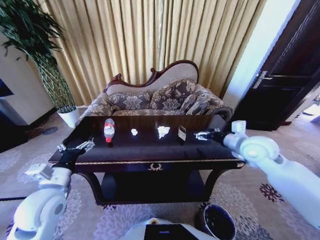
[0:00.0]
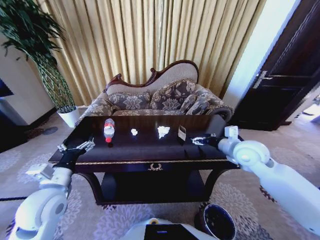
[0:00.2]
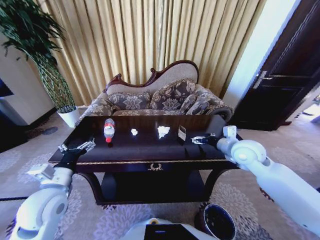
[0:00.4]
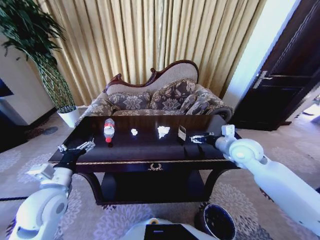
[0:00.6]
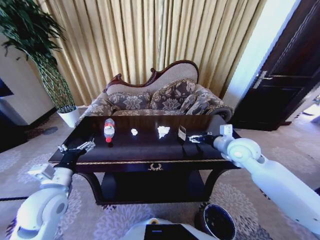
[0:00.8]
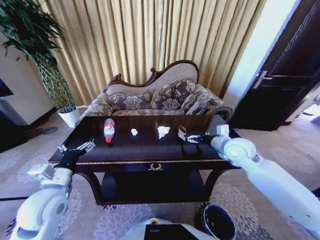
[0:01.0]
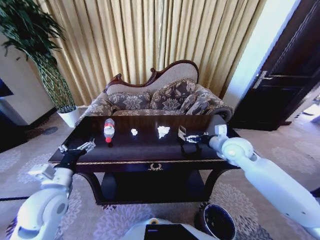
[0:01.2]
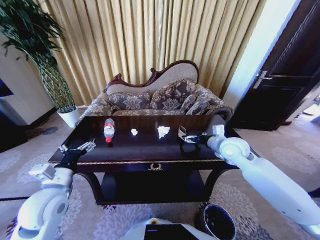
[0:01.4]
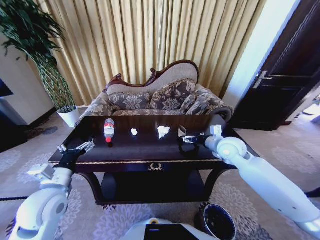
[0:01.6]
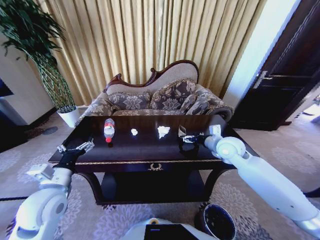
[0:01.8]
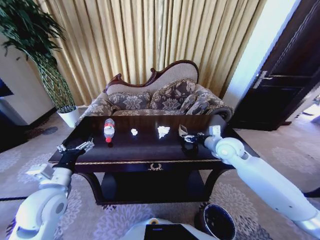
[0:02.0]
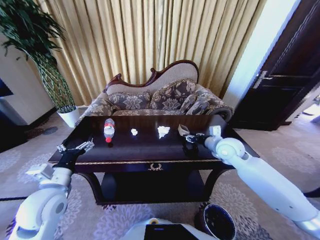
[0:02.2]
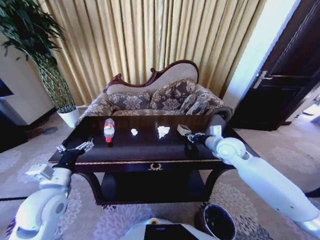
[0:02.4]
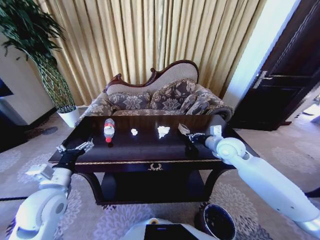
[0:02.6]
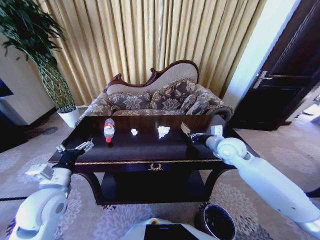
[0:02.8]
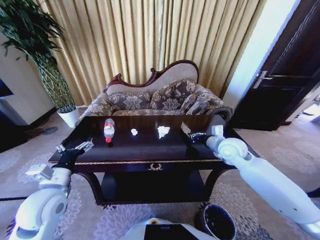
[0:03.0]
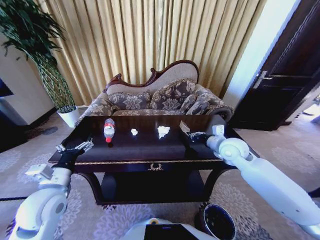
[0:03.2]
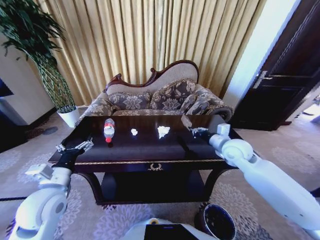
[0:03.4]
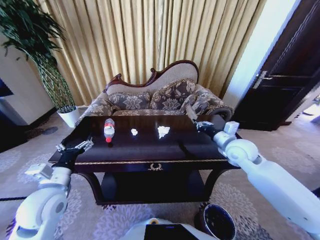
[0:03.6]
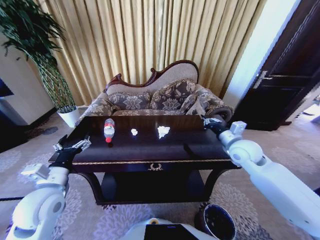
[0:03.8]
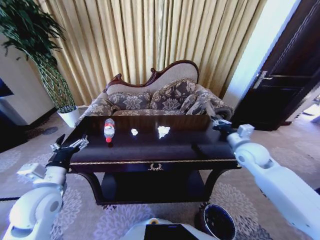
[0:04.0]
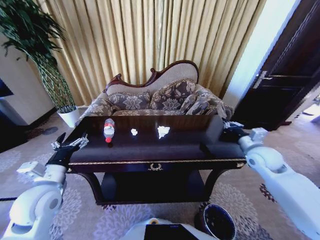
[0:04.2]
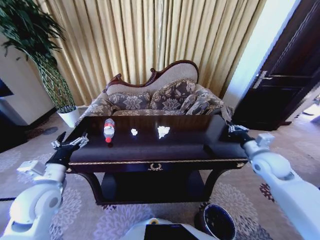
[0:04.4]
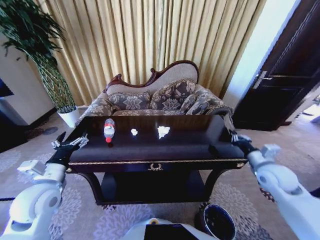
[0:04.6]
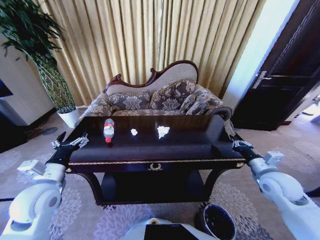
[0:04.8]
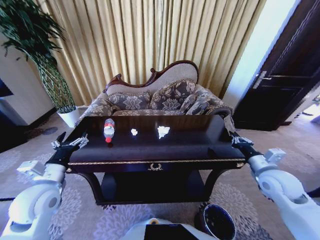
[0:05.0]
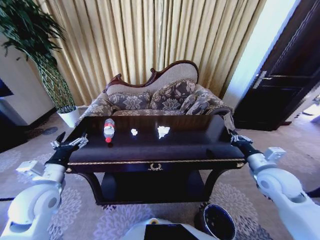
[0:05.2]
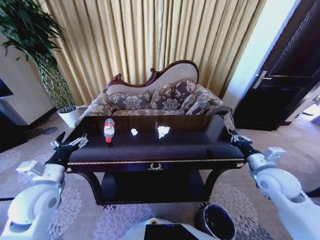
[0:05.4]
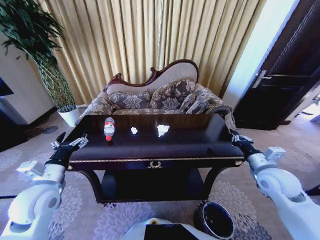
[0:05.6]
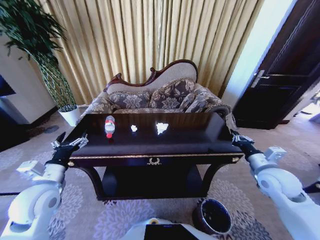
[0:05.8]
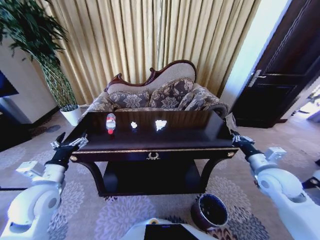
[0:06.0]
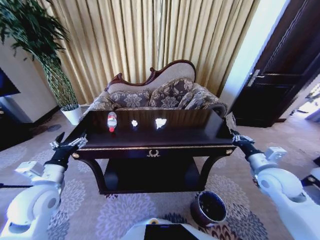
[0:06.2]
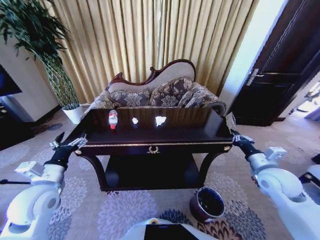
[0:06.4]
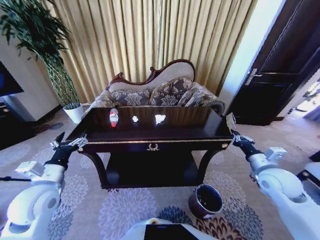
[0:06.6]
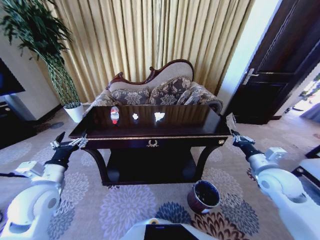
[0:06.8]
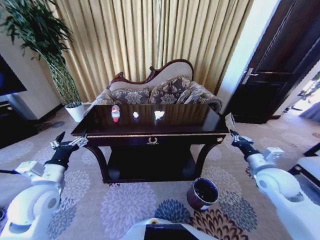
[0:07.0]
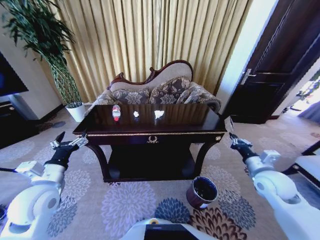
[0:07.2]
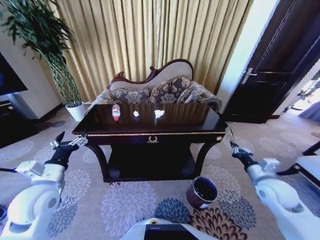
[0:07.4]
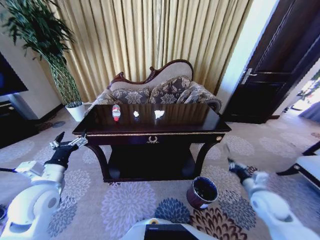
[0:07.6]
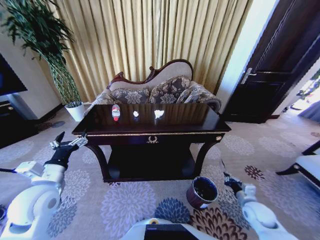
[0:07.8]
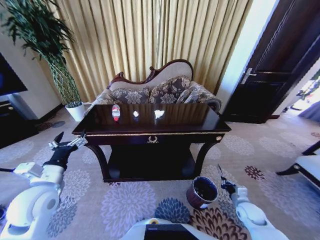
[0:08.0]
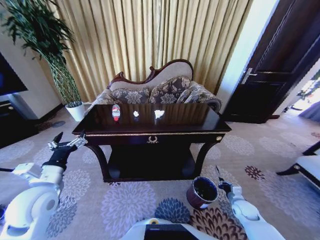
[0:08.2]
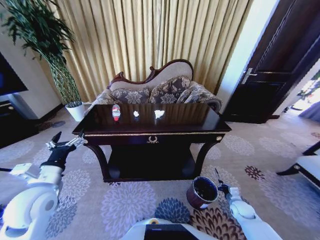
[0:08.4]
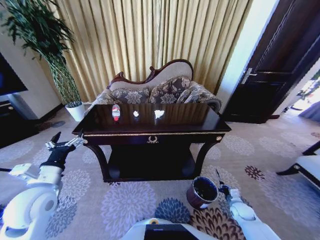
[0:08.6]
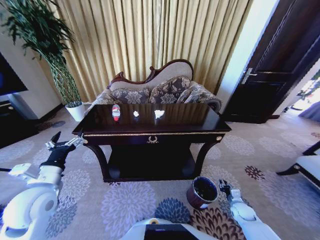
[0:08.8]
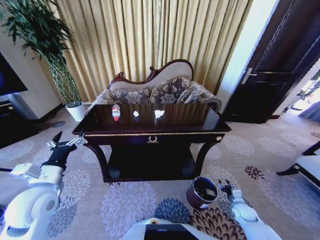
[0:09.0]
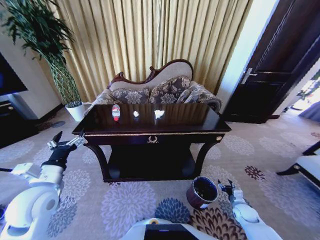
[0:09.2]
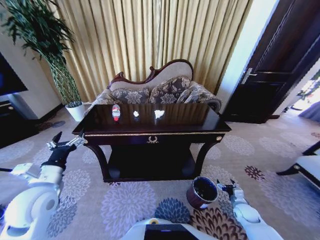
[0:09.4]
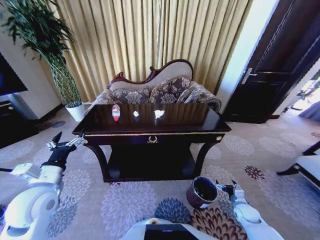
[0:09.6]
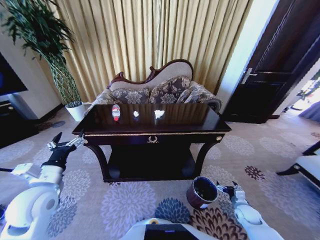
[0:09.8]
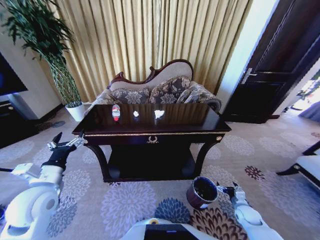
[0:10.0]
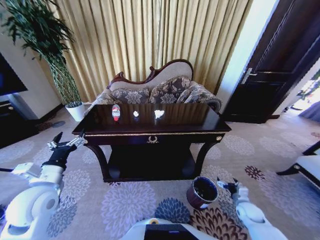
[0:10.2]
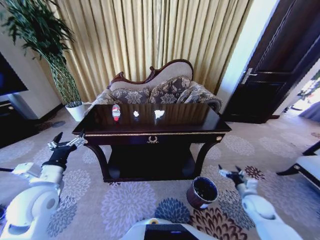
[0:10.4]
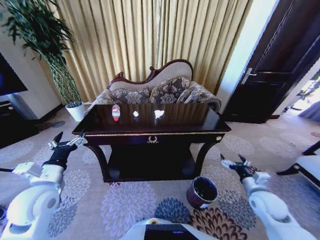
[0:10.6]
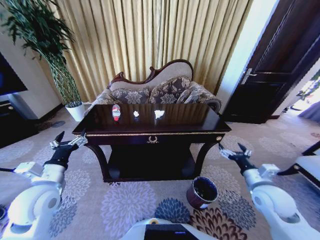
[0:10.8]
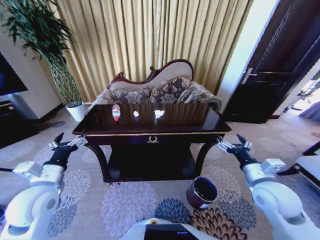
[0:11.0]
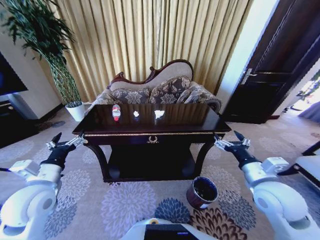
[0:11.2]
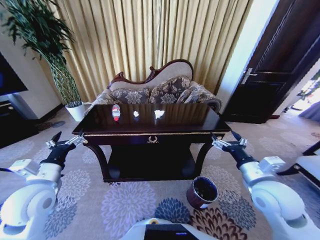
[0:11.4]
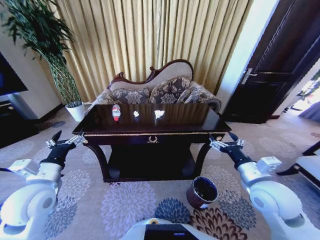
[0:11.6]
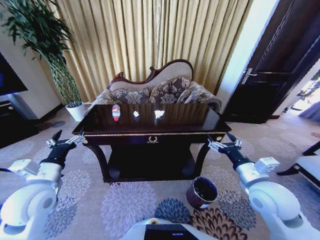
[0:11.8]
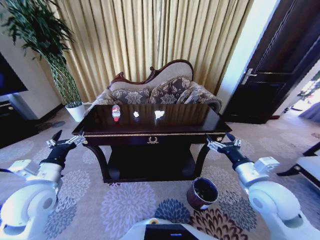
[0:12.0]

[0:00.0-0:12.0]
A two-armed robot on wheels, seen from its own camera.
Task of the whole recording: Move to the front of the table and place the trash on the table into the trash bin.
0:00.0 to 0:01.6: The right gripper shifts by some 5 cm.
0:01.6 to 0:03.0: The right gripper closes its fingers.
0:03.0 to 0:04.4: The right gripper heads to the right and backward, covering roughly 15 cm.
0:04.4 to 0:06.0: The right gripper moves backward, roughly 5 cm.
0:06.0 to 0:07.6: The right gripper heads downward, covering roughly 10 cm.
0:07.6 to 0:09.0: The right gripper is displaced downward by roughly 20 cm, and opens its fingers.
0:09.0 to 0:10.4: The right gripper travels upward by roughly 10 cm, and opens its fingers.
0:10.4 to 0:12.0: The right gripper shifts some 25 cm upward and to the left.

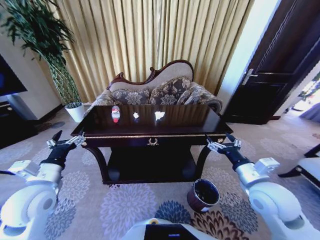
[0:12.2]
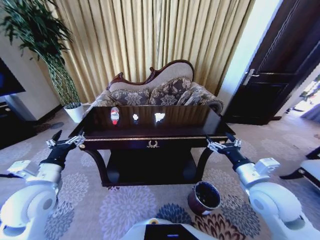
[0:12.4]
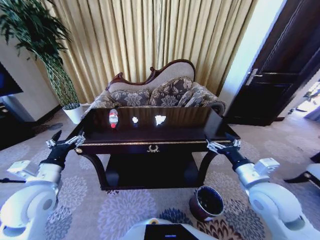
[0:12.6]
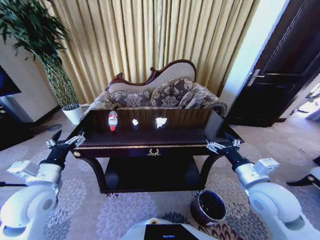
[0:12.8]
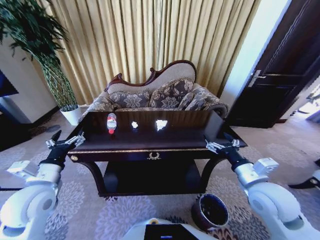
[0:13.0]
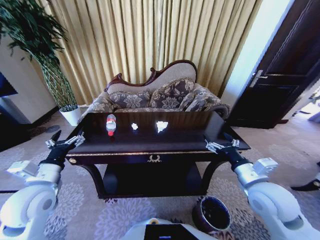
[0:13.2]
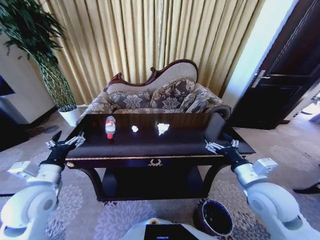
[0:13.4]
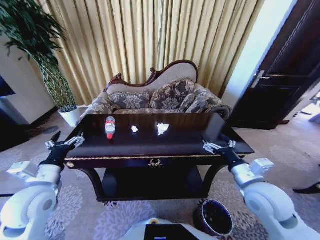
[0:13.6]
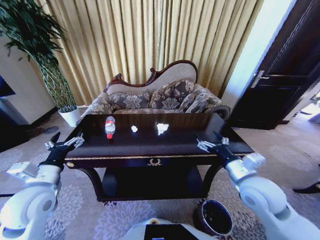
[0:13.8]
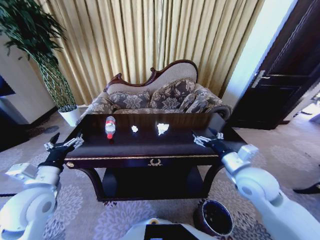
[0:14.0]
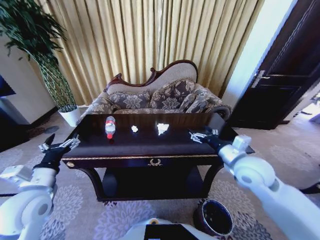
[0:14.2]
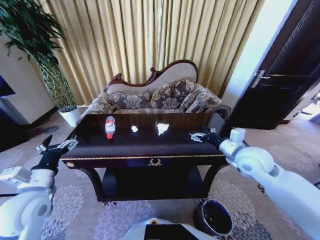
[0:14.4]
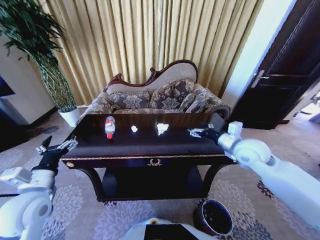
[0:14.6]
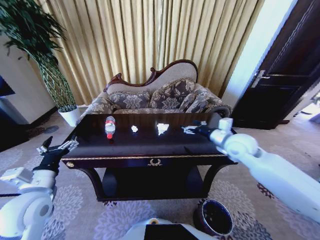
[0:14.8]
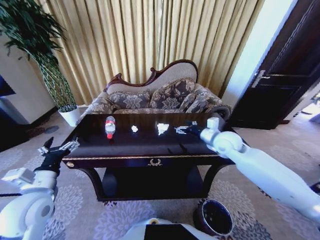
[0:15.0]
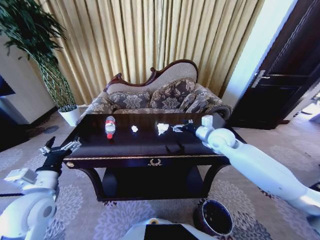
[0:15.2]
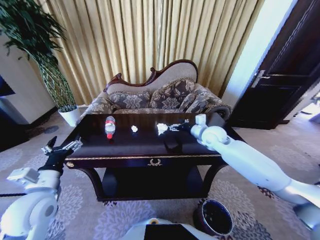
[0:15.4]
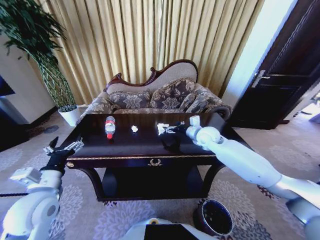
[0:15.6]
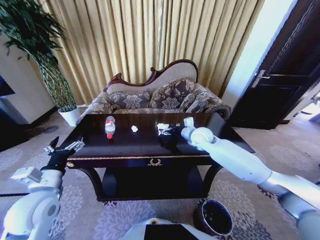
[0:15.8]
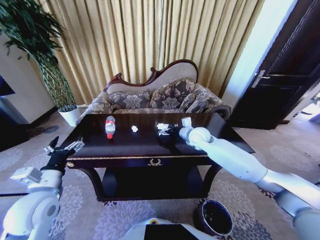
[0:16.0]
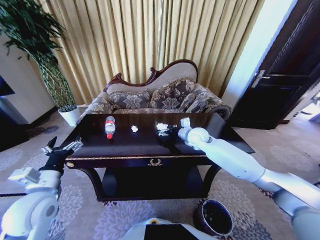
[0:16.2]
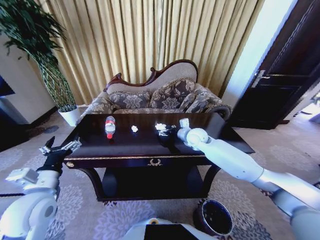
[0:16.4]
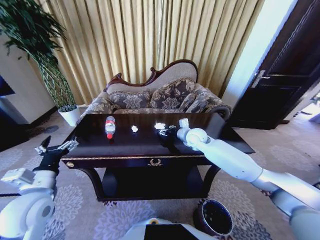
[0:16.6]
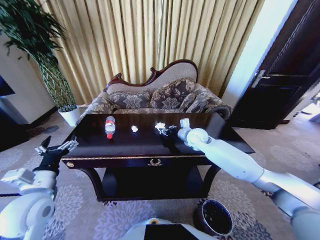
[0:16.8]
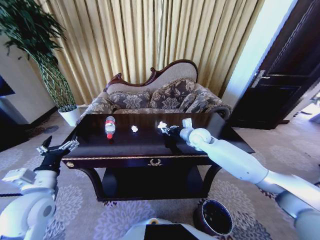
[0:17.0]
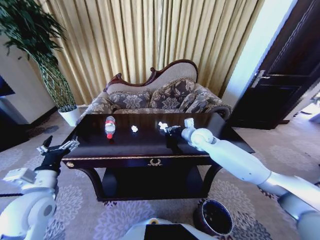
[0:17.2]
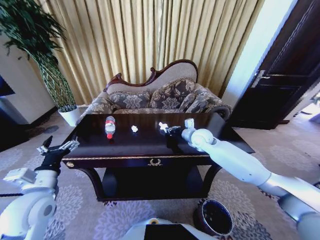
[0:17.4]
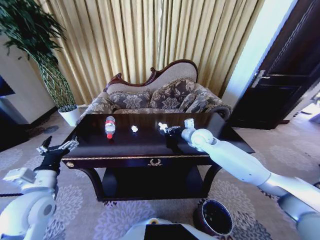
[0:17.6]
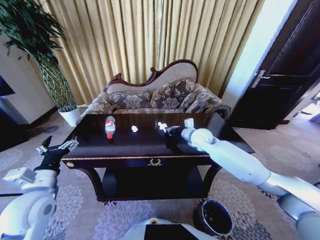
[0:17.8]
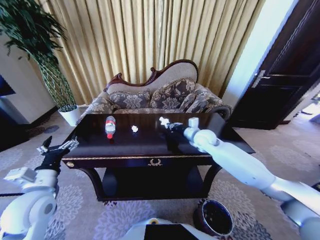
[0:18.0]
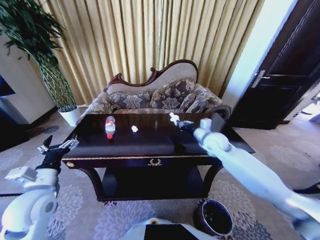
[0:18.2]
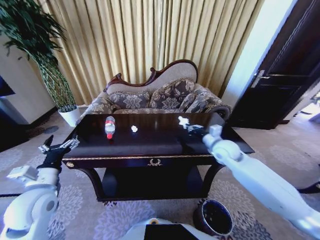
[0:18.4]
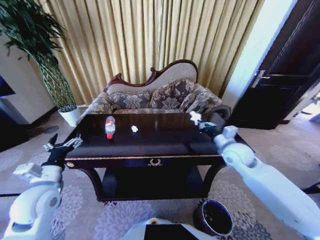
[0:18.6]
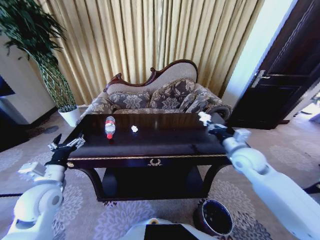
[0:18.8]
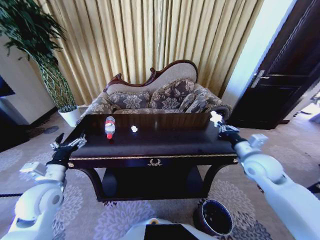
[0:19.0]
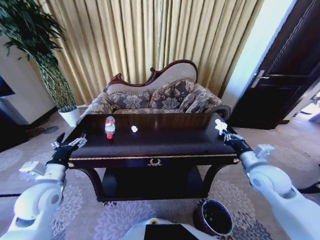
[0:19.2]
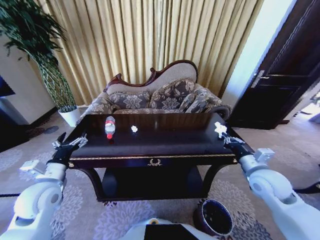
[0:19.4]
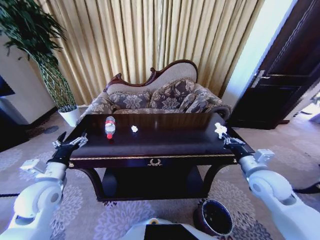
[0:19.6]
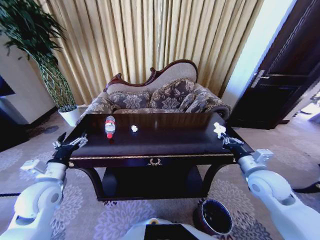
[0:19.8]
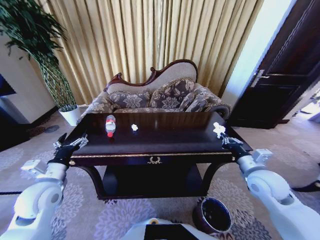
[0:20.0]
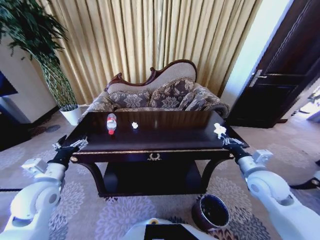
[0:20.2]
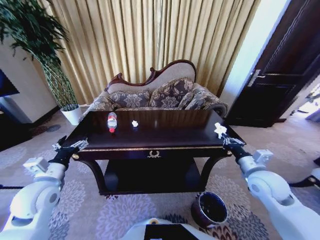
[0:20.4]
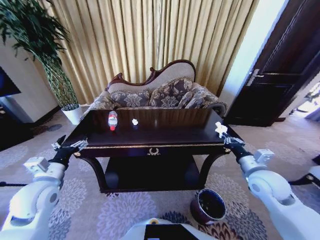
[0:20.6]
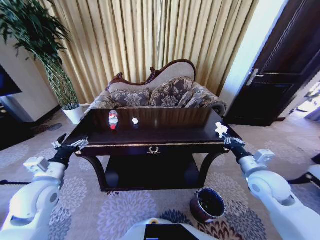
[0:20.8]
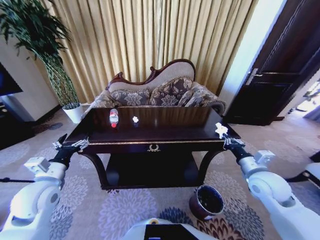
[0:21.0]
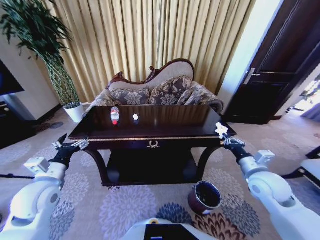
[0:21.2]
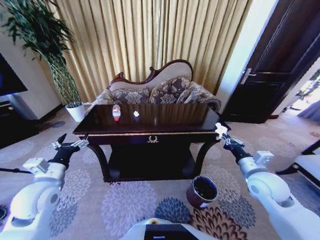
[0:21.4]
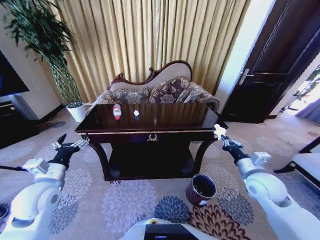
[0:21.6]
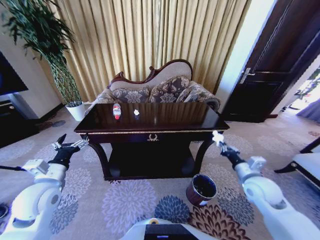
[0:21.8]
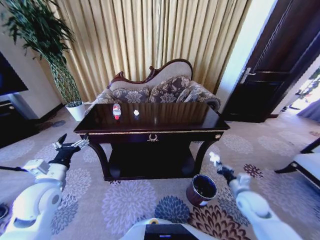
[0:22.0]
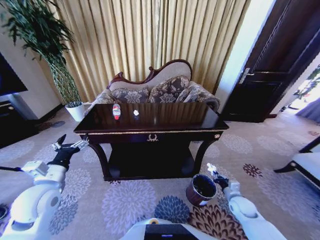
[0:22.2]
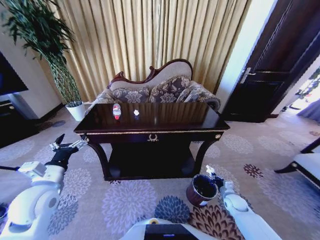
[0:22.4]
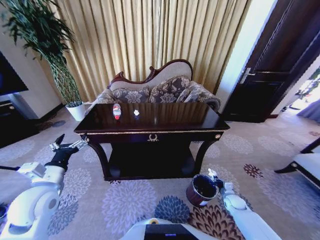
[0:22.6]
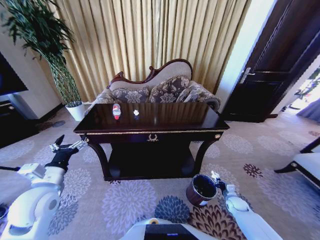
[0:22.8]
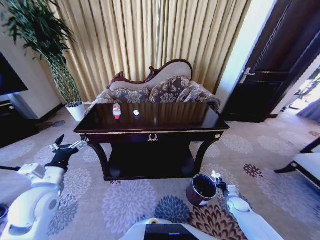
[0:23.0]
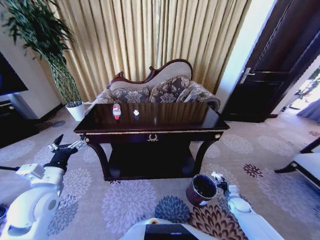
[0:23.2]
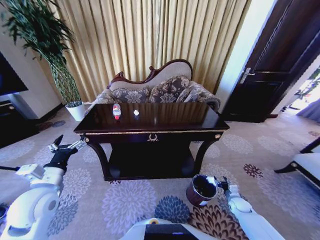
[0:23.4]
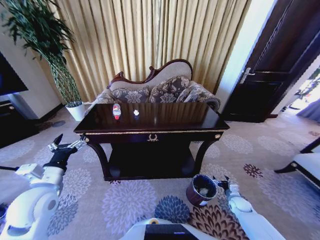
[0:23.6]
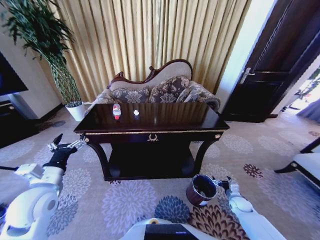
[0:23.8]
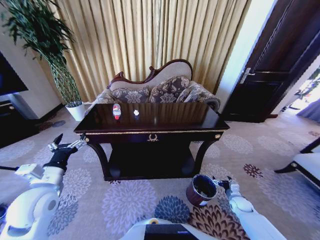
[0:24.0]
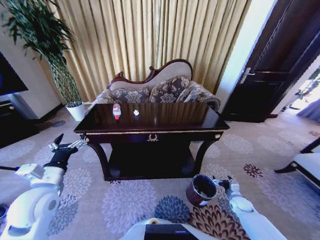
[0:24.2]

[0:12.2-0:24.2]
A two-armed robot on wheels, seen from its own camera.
Task of the whole recording: Move to the front of the table and place the trash on the table into the trash bin.
0:13.8 to 0:15.2: The right gripper goes approximately 20 cm forward.
0:15.2 to 0:16.6: The right gripper is displaced to the left by roughly 5 cm, and closes up.
0:16.6 to 0:18.2: The right gripper shifts approximately 5 cm to the right, and closes its fingers.
0:18.2 to 0:19.8: The right gripper shifts about 20 cm backward and to the right.
0:21.2 to 0:22.6: The right gripper goes some 30 cm downward.
0:22.6 to 0:24.2: The right gripper opens up.
